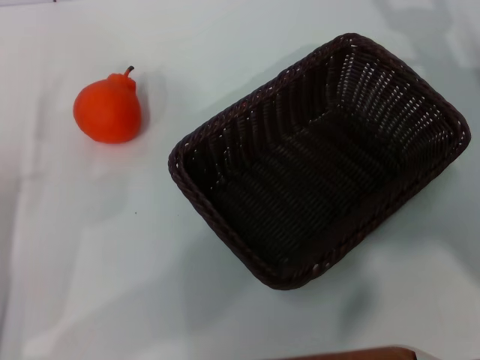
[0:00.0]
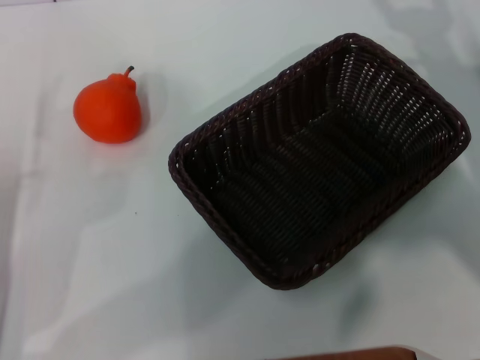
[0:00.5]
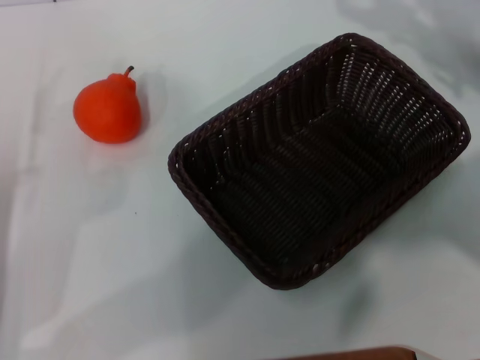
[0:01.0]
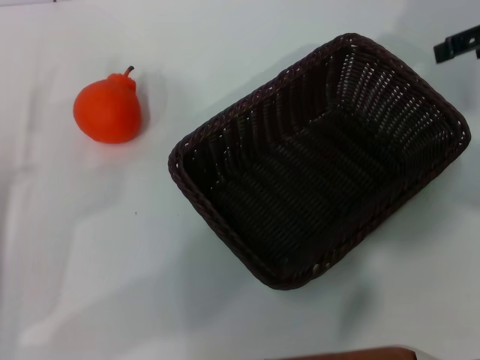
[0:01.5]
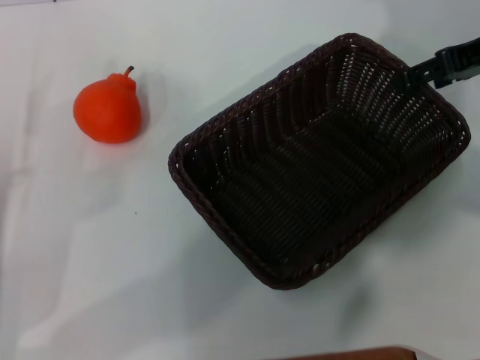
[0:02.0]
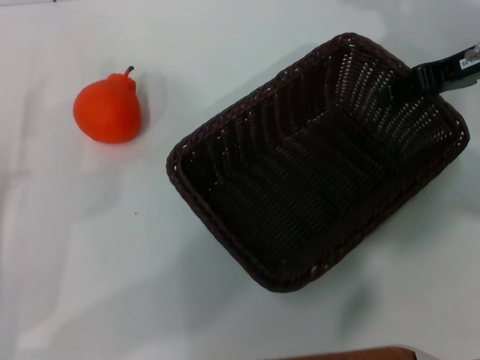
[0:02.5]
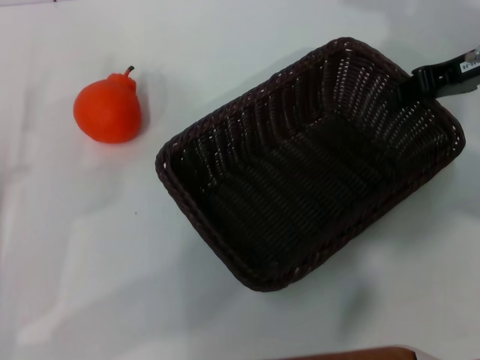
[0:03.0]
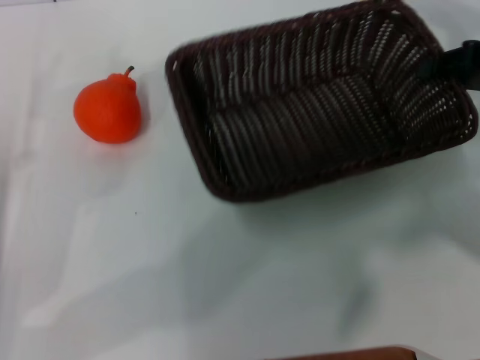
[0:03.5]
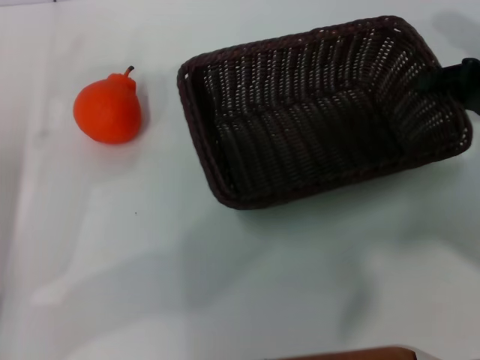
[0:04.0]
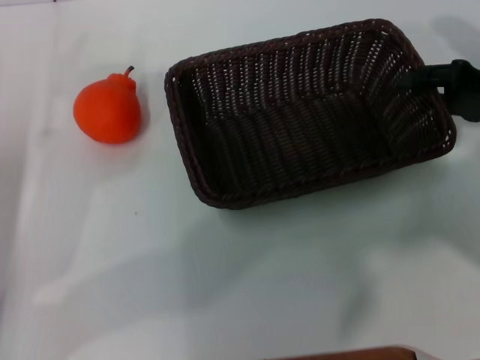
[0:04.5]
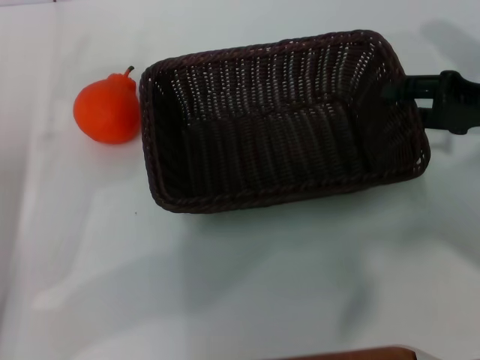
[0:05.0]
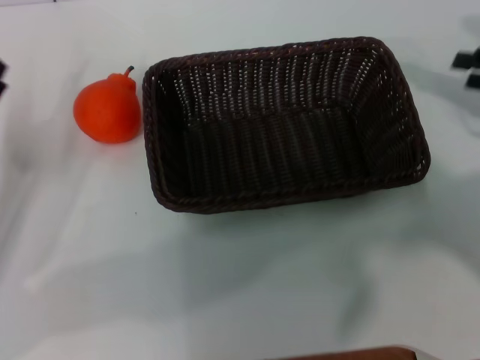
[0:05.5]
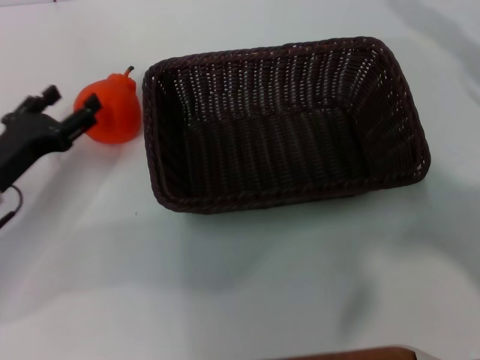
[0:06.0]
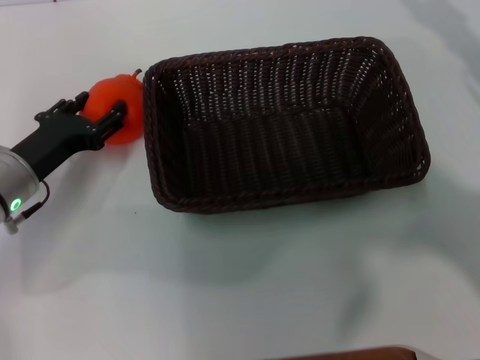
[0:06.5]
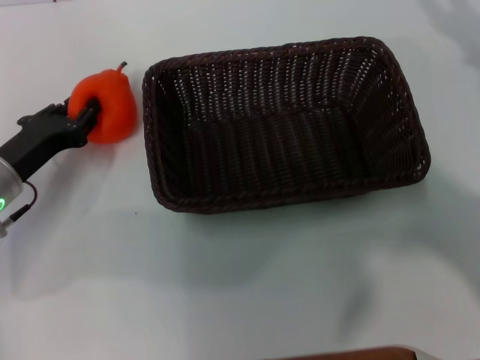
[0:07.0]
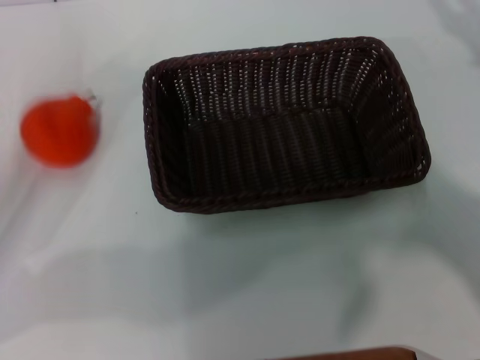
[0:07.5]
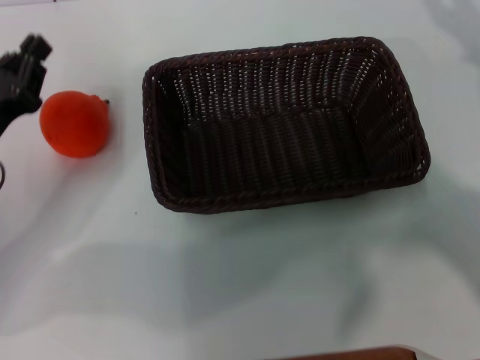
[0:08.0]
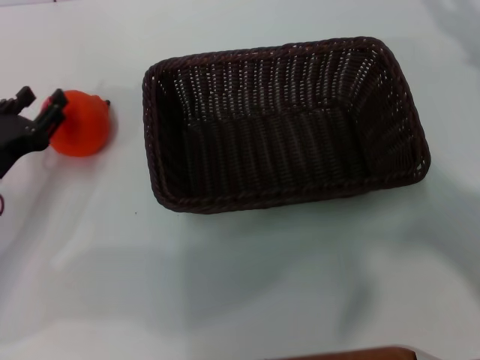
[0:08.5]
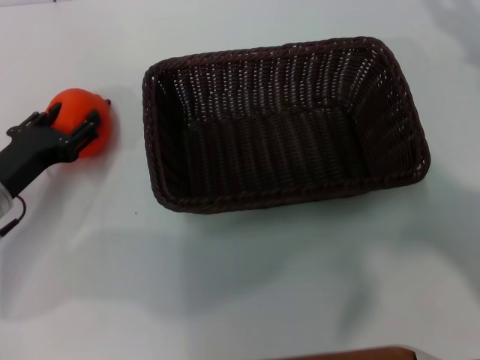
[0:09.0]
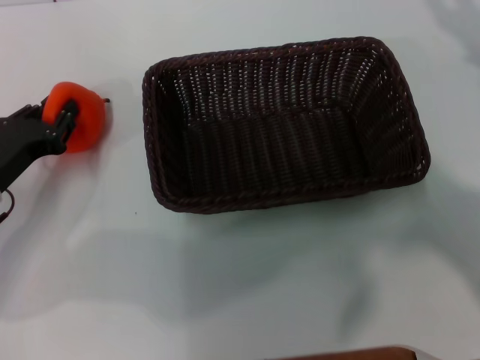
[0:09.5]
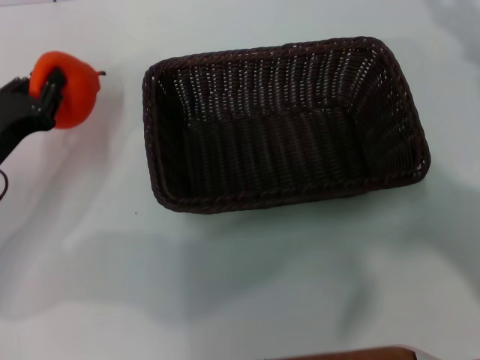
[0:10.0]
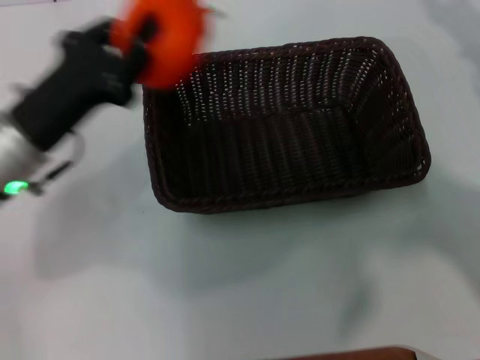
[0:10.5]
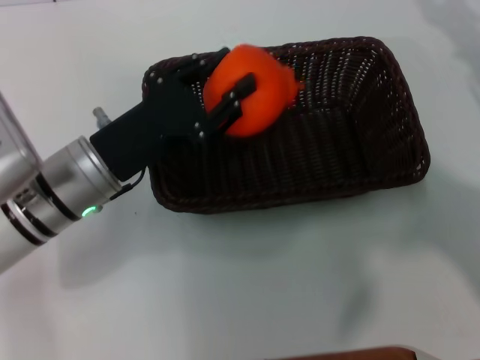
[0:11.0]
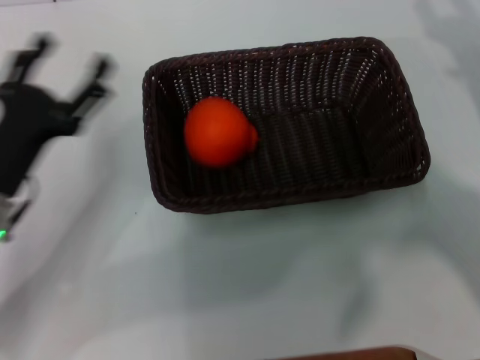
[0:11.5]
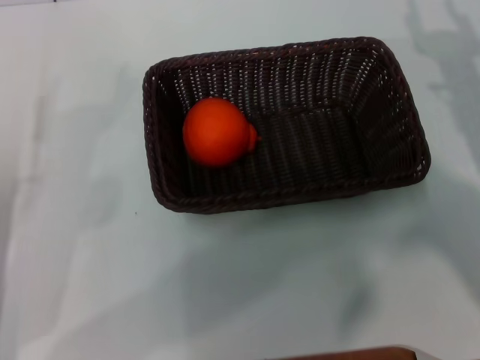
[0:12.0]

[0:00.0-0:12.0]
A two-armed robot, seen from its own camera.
Task of the whole recording: the right gripper pick up the black basket and place it horizontally in the middle of the table, the left gripper pick up the orange and place it into the black basket.
Step, 0:00.0 to 0:03.5: Pick up the dark basket with the right gripper.
Step, 0:04.0 to 0:05.0: Place the dark basket in the center of view with the right gripper.
Step, 0:05.5 to 0:09.5: Pick up the orange with the left gripper.
Step, 0:10.5 to 0:11.0: Place the orange into the dark basket with the left gripper.
0:00.0 to 0:02.0: The right gripper travels upward and forward by roughly 15 cm.
0:02.0 to 0:04.0: The right gripper heads downward, covering about 10 cm, and closes up.
0:04.0 to 0:06.0: The right gripper moves to the right, approximately 5 cm, and opens up; the left gripper moves about 5 cm.
0:06.0 to 0:08.0: The left gripper closes its fingers.
0:08.0 to 0:10.0: The left gripper opens, then closes once more.
0:10.0 to 0:12.0: The right gripper goes roughly 10 cm to the left and downward, while the left gripper travels backward by some 10 cm, goes to the right and returns, roughly 10 cm each way, and opens.
